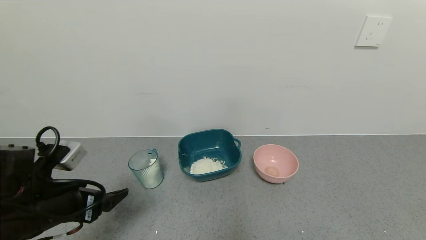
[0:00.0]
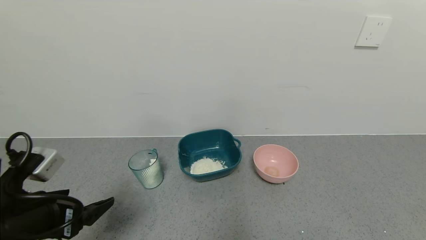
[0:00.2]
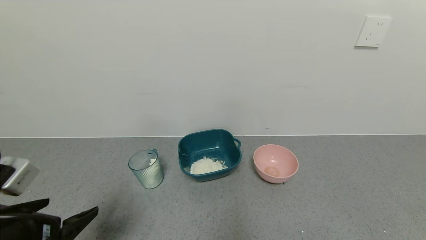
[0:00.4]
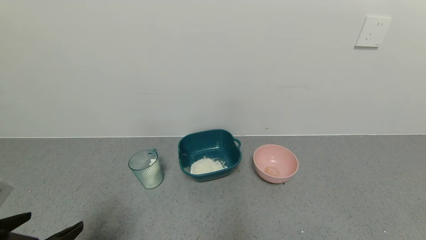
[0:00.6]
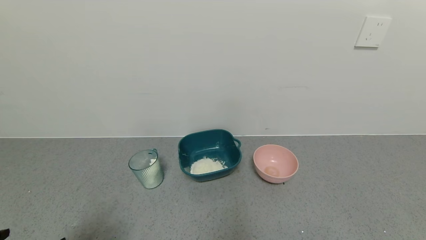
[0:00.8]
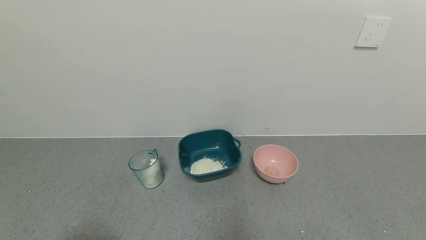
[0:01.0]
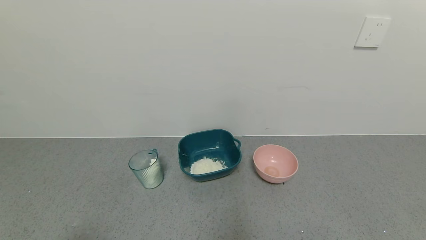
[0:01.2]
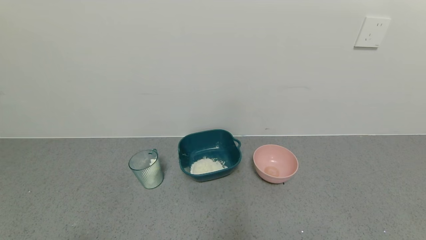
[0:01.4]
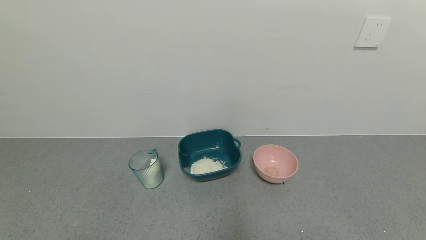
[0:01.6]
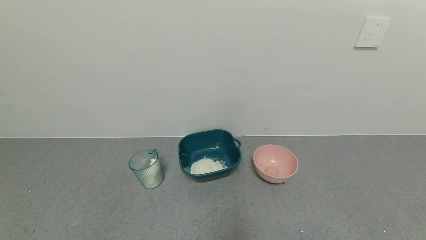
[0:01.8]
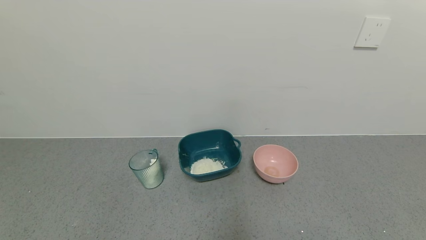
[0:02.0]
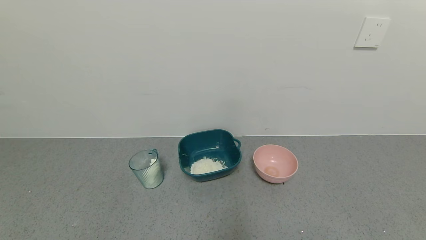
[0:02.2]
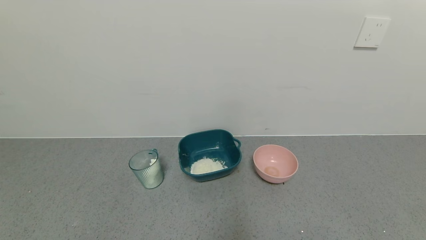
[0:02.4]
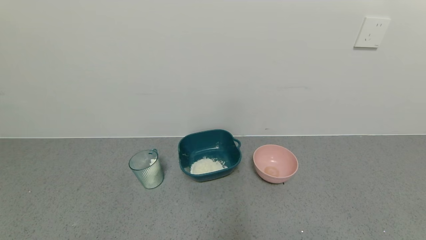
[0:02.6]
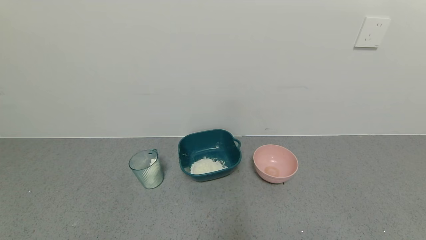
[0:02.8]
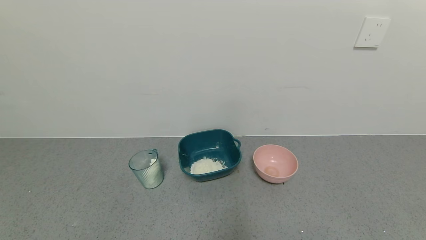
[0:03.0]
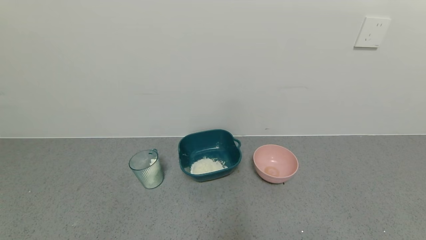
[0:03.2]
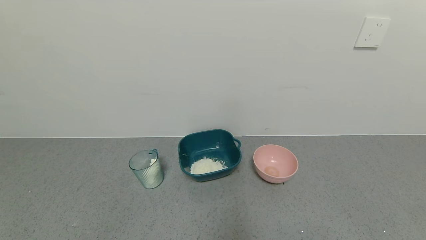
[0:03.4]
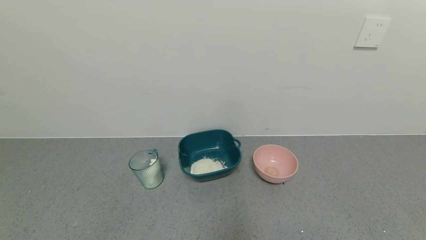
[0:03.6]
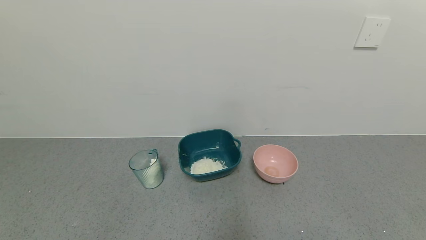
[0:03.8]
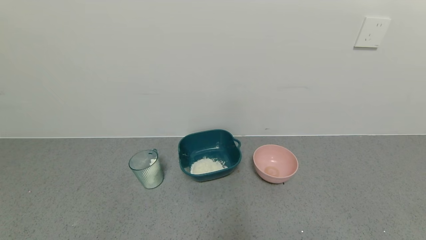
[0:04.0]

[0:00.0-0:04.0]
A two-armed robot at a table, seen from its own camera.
Task of the whole recording: use a gripper to pick up the cup and pour the powder into a bowl or tray.
0:00.0 to 0:01.4: The left gripper heads backward, covering roughly 15 cm.
